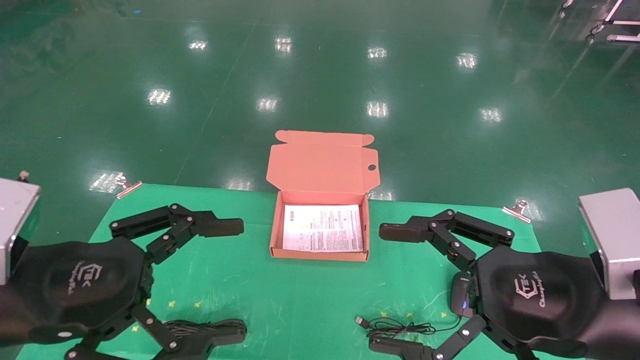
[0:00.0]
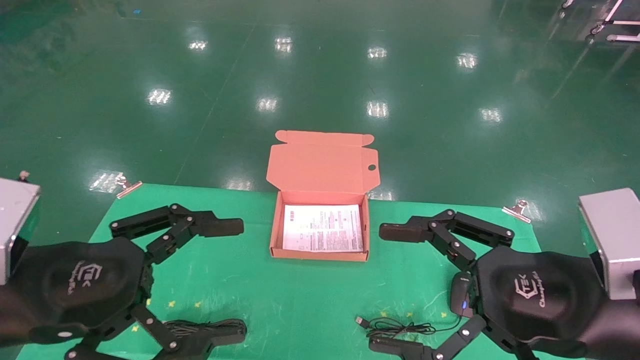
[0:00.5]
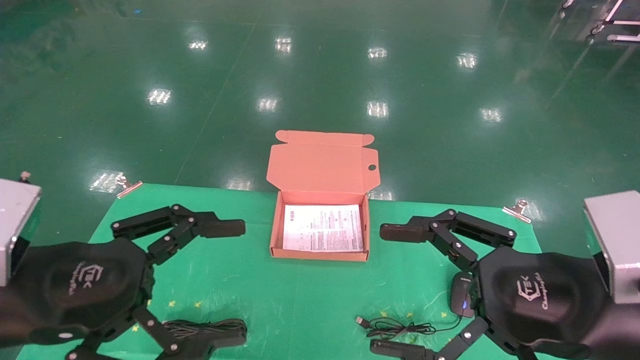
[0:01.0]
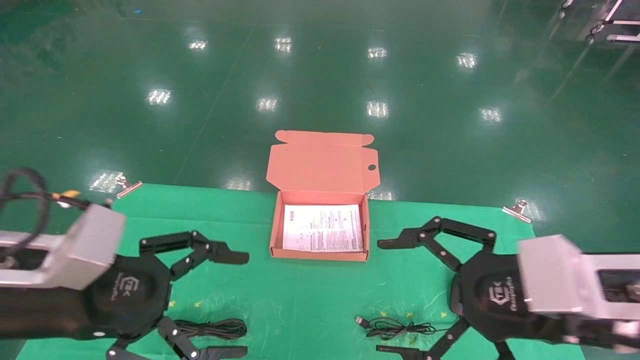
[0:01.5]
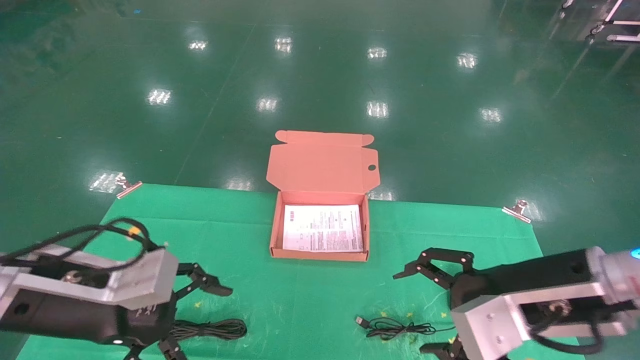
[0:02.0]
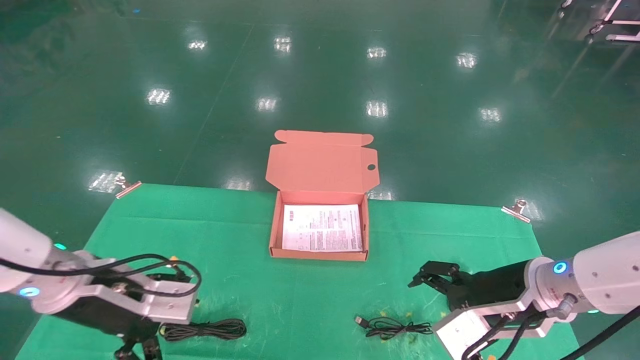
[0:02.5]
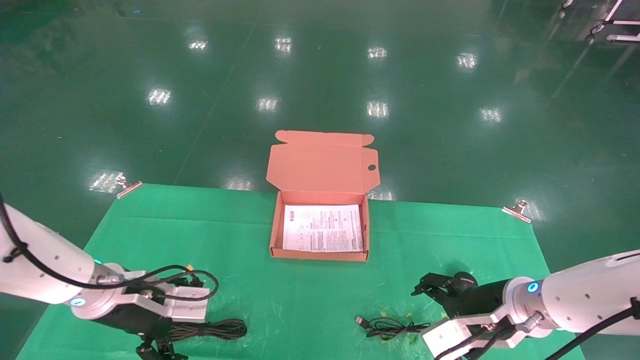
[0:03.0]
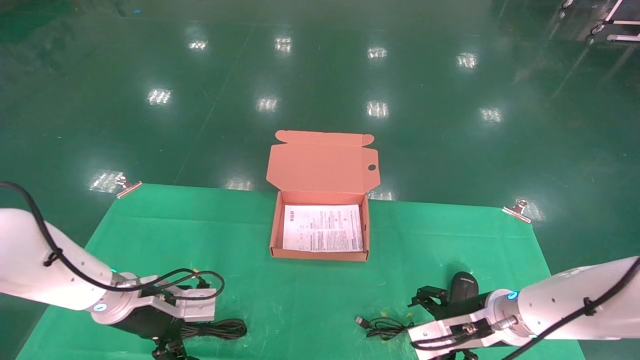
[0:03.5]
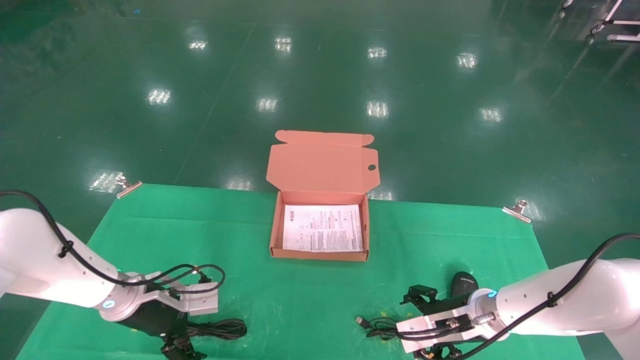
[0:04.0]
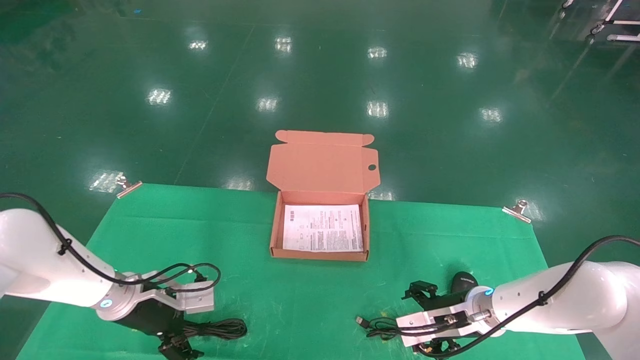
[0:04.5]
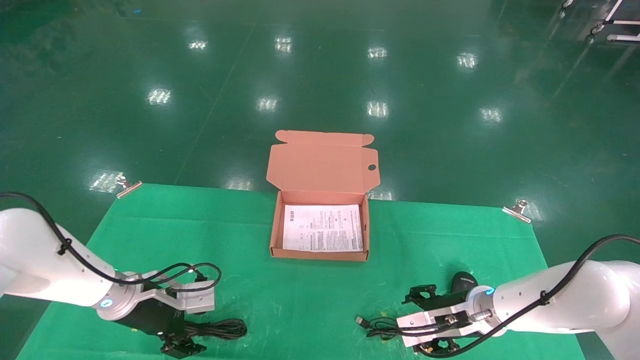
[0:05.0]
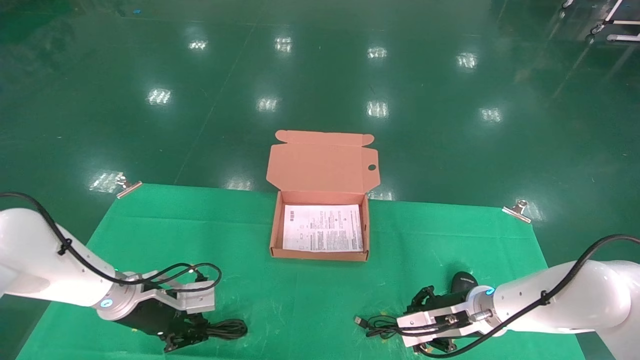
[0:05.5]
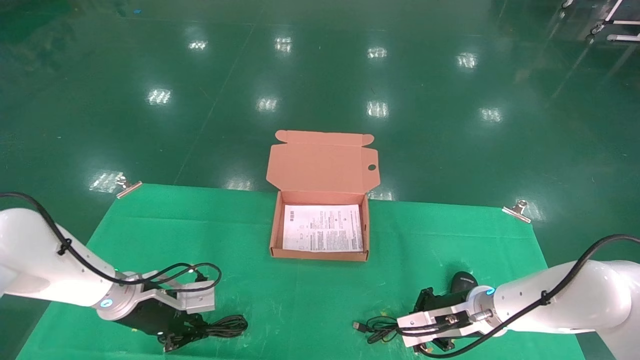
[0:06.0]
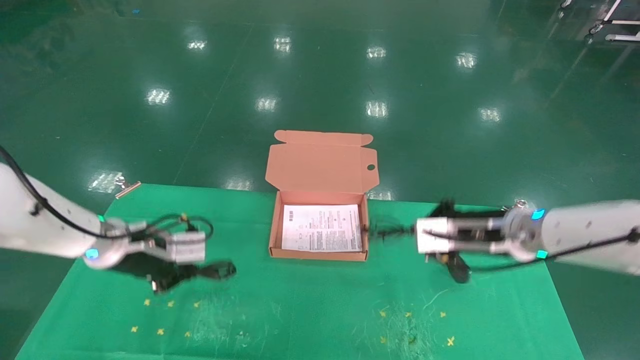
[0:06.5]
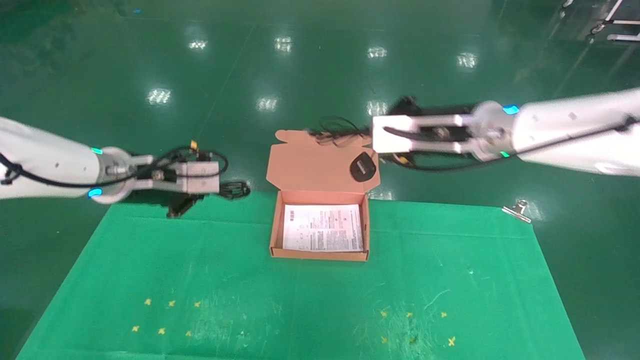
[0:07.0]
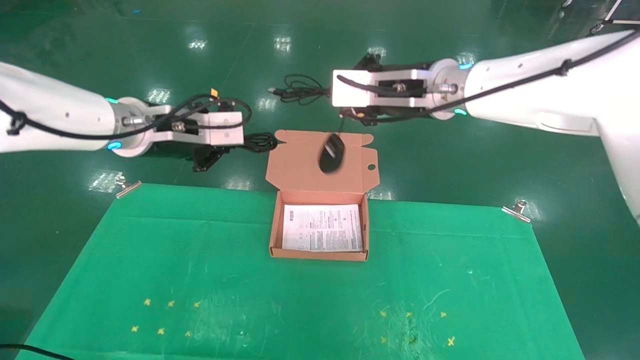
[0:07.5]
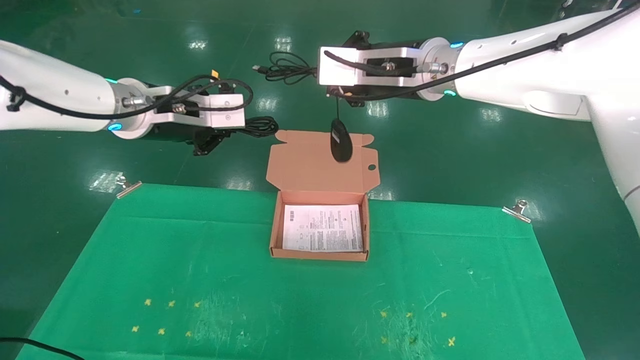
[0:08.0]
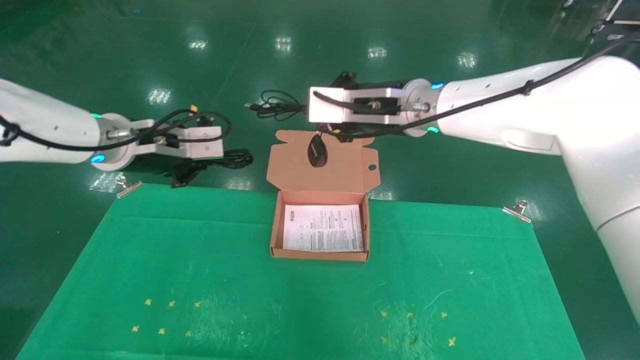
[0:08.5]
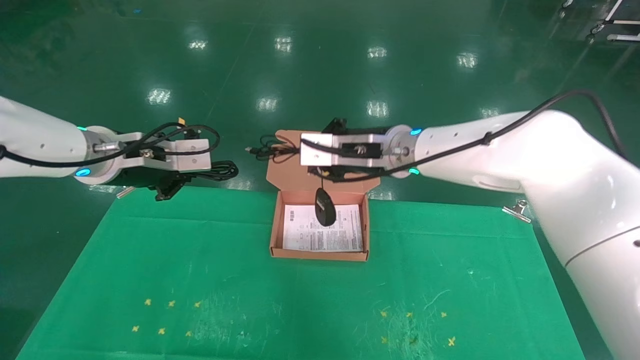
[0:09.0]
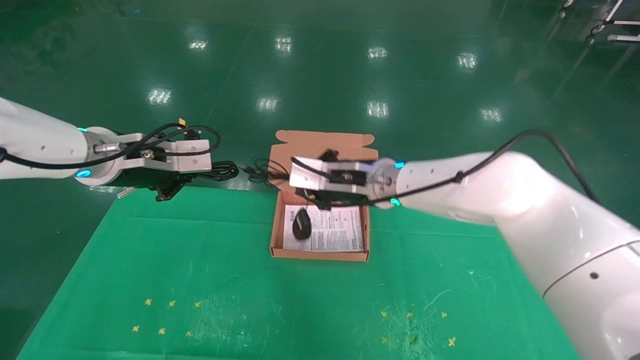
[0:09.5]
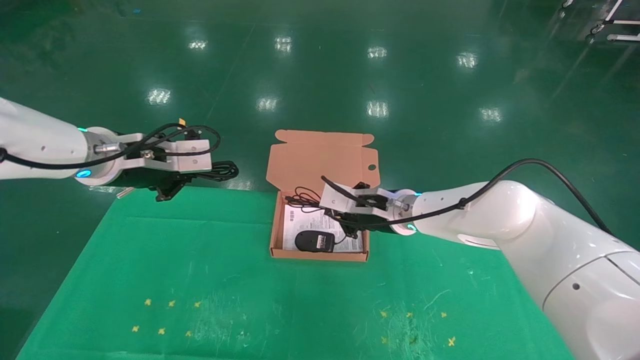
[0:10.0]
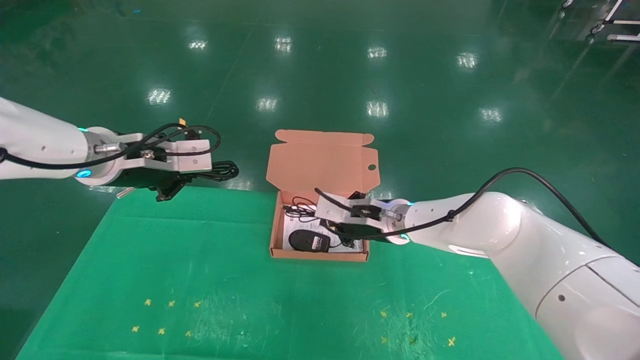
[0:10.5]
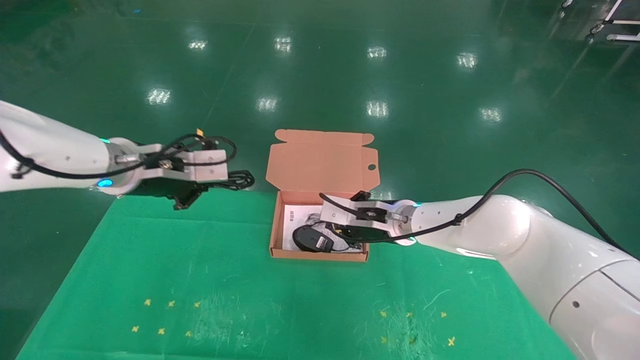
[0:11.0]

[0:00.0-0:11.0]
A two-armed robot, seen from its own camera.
Task of the whole recording: grasp data cable left put into box grasp mouse right put into box.
Step, 0:01.5 to 0:06.0: Grab and pick up both the mouse and power cord from the accessory packaging area at the same time.
0:00.0 to 0:02.0: The two grippers go approximately 10 cm forward.
0:02.0 to 0:03.5: The left gripper goes roughly 15 cm forward and downward. Meanwhile the right gripper shifts some 15 cm downward and forward.
0:03.5 to 0:05.5: The right gripper closes its fingers. Meanwhile the left gripper closes.
0:05.5 to 0:07.5: The two grippers go some 30 cm upward. The right gripper closes.
0:07.5 to 0:09.0: The right gripper travels downward and to the left by about 10 cm.
0:09.0 to 0:11.0: The right gripper goes roughly 10 cm downward.

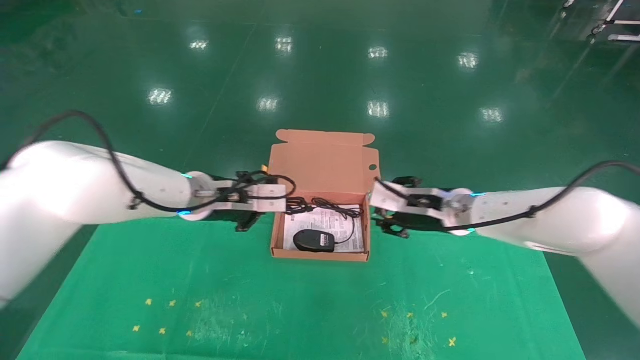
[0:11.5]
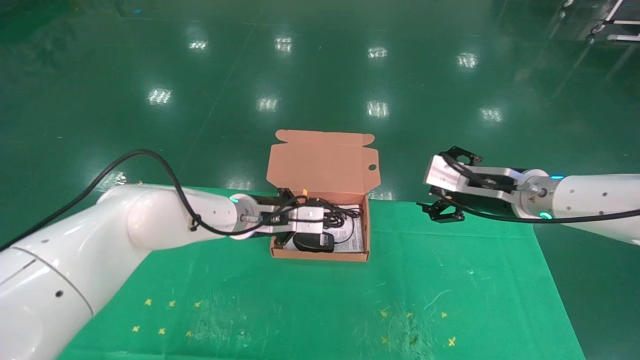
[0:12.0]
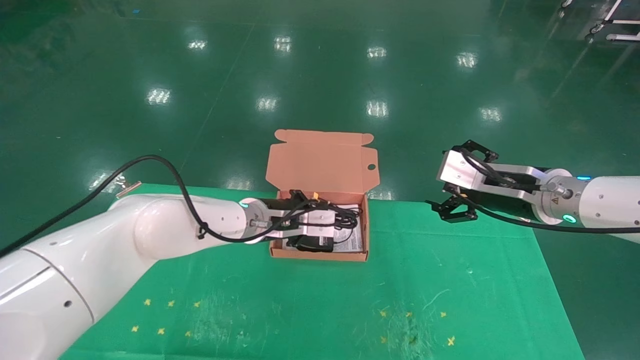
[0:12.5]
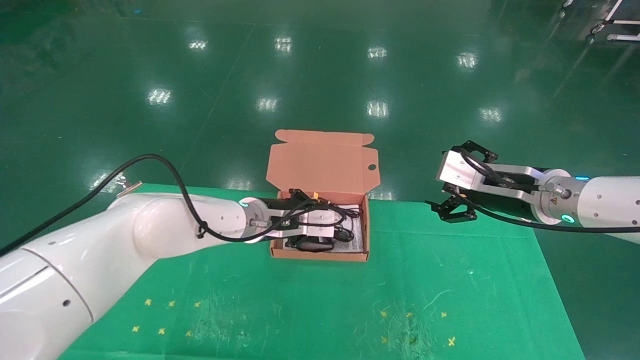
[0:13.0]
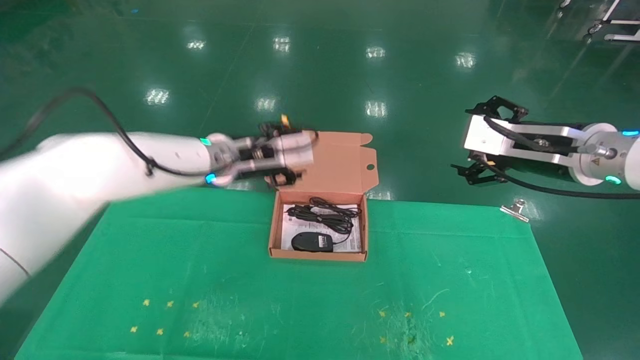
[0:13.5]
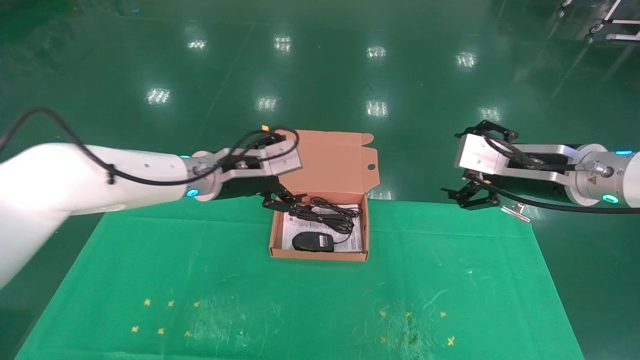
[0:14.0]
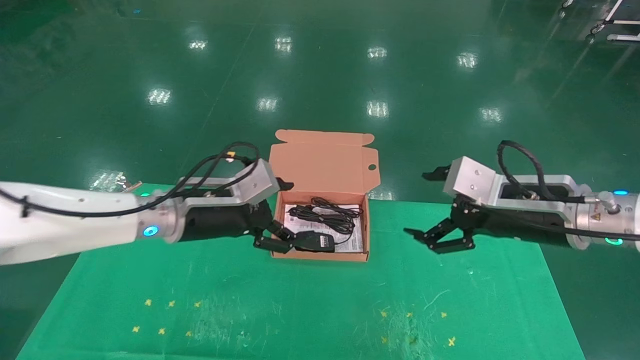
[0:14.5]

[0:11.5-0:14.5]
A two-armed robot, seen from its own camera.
Task of the whole recording: grasp data cable left put into box grasp mouse right put into box.
0:11.5 to 0:13.0: The left gripper is displaced to the right and downward by roughly 10 cm, while the right gripper heads to the right, backward and upward, covering approximately 15 cm, and opens its fingers.
0:13.0 to 0:14.5: The right gripper shifts some 5 cm backward, while the left gripper heads to the left and backward, covering approximately 10 cm, and opens its fingers.

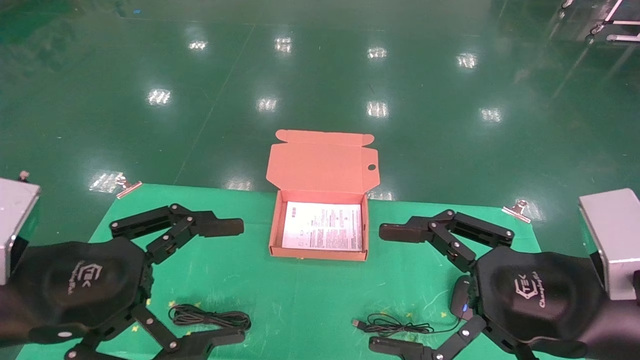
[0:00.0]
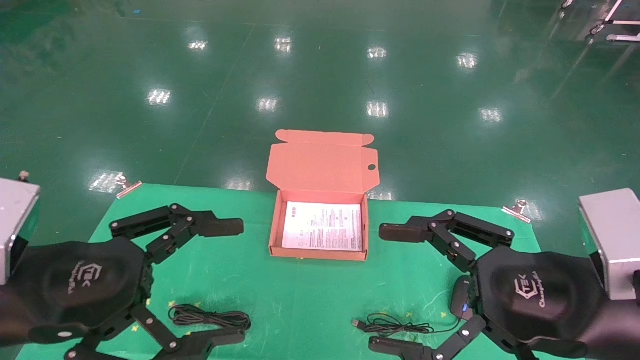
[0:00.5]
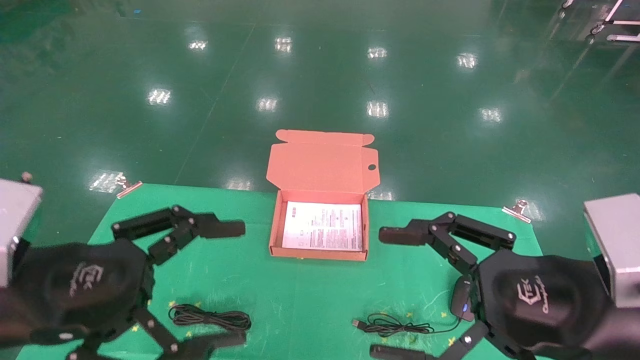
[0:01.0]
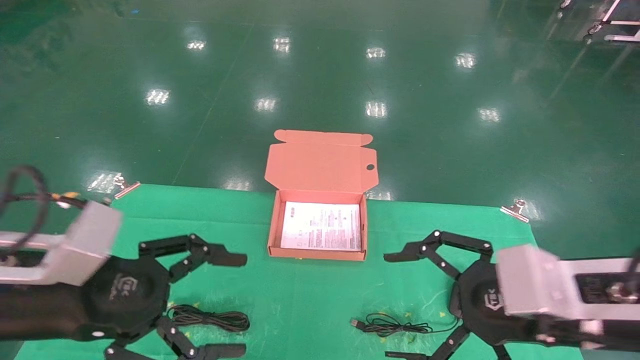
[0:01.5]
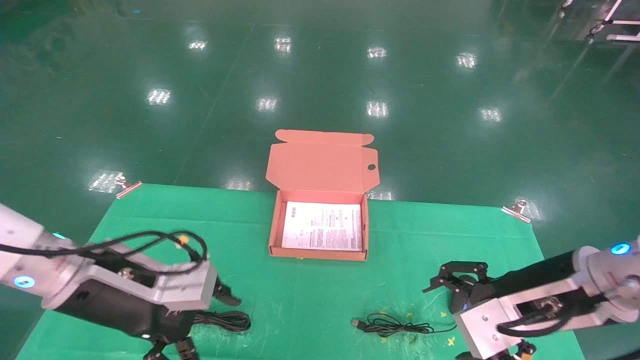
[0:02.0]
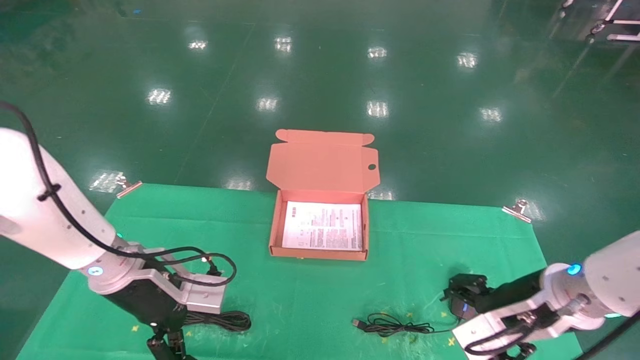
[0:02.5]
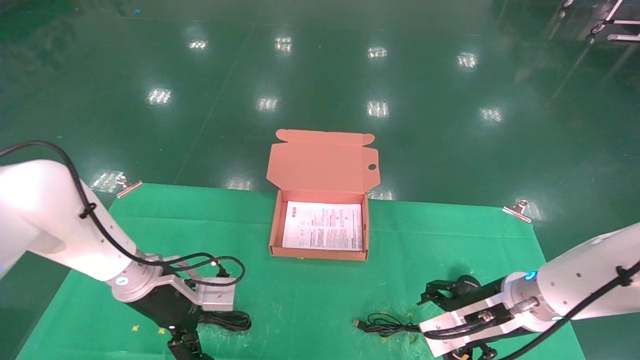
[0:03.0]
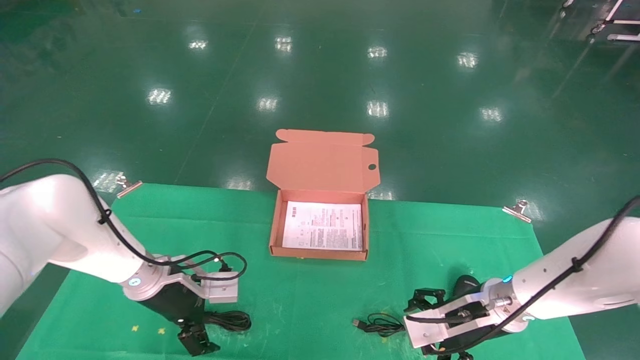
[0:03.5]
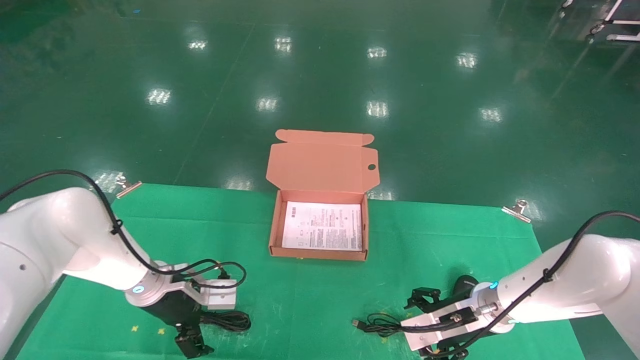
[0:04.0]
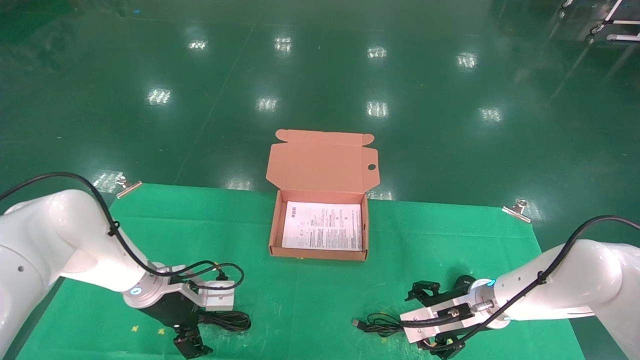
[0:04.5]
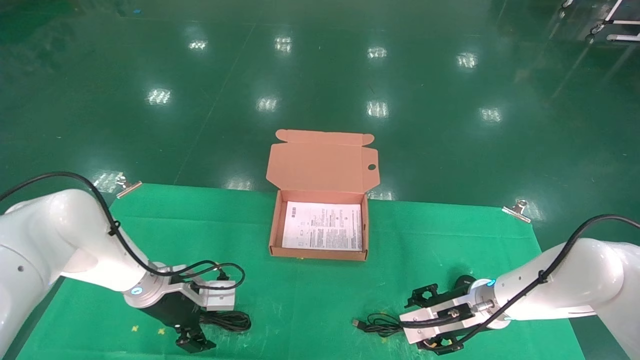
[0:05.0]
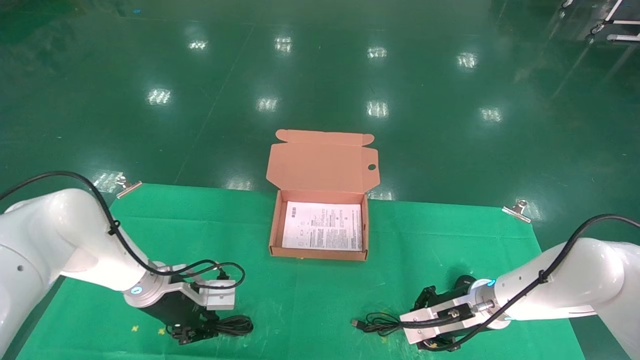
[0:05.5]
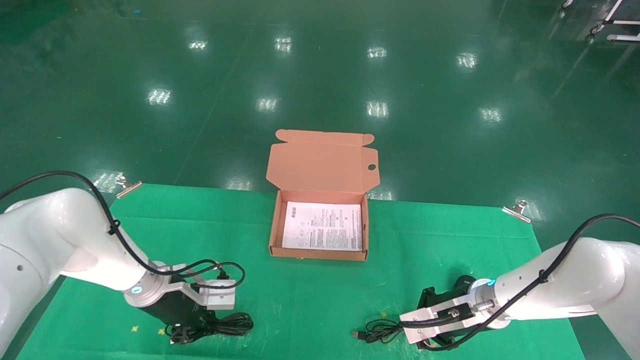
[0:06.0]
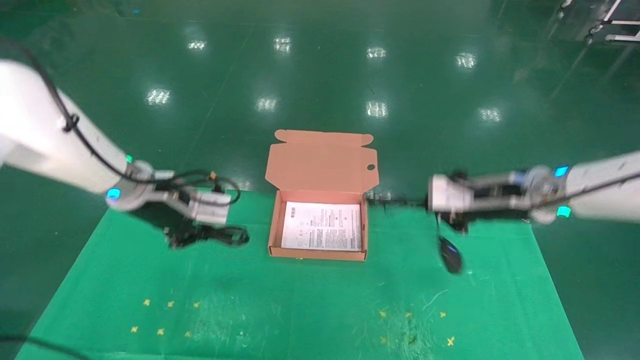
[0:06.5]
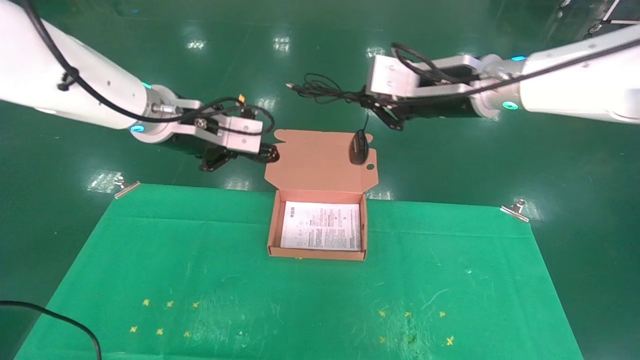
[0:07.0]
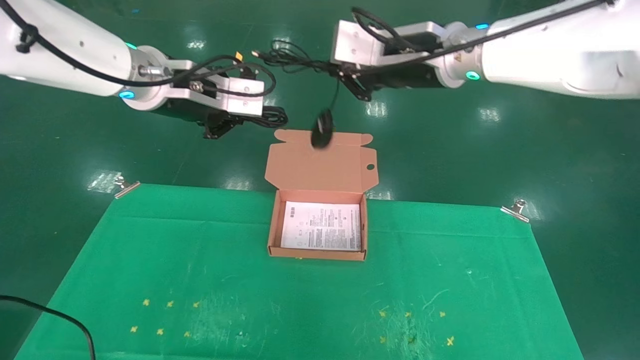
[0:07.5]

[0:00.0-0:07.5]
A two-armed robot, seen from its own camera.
Task of the whole recording: grasp data cable left put into box grasp mouse right put into box.
Step, 0:01.5 to 0:06.0: Grab and pick up both the mouse and power cord from the accessory packaging area at the same time.
0:00.0 to 0:02.0: The right gripper goes roughly 10 cm forward. Meanwhile the left gripper is displaced forward and downward by about 15 cm.
0:02.0 to 0:04.0: Both grippers travel together forward and downward, roughly 15 cm.
0:04.0 to 0:05.5: The left gripper closes; the right gripper closes up.
0:05.5 to 0:07.5: The grippers both shift upward by some 30 cm.
